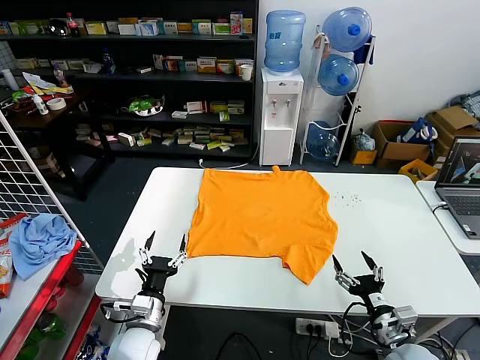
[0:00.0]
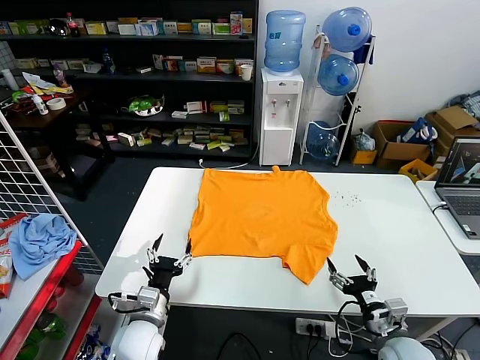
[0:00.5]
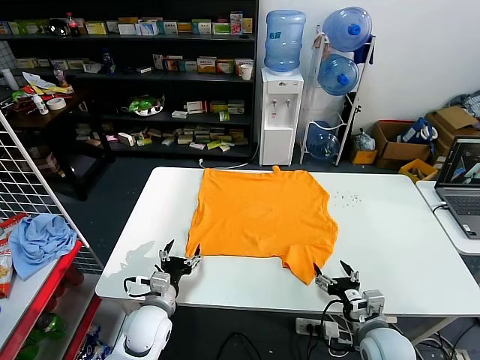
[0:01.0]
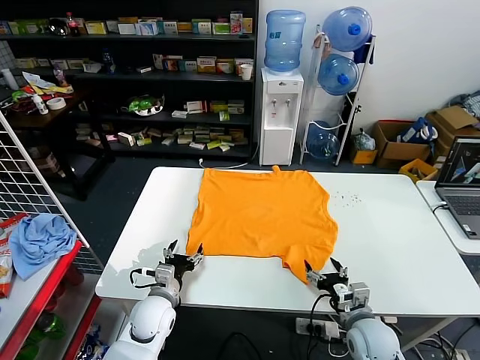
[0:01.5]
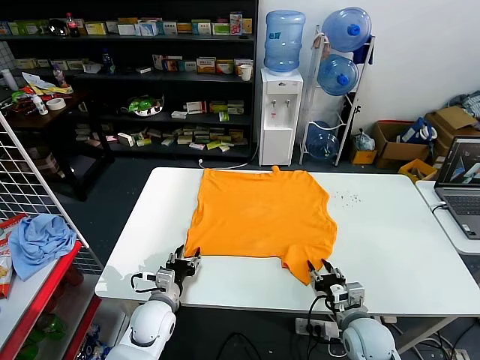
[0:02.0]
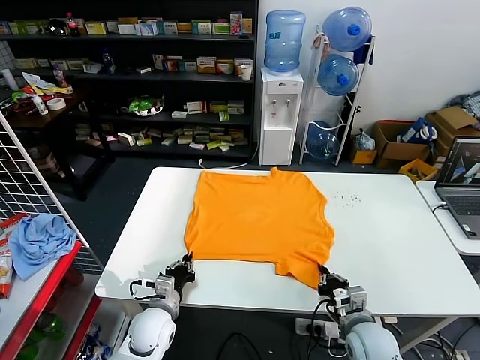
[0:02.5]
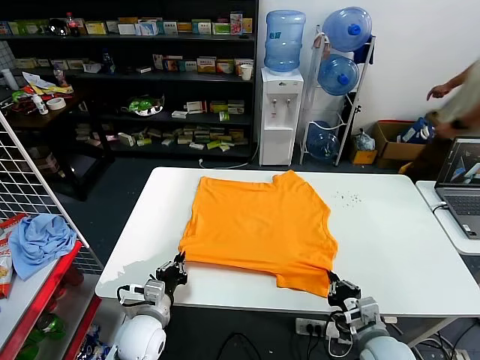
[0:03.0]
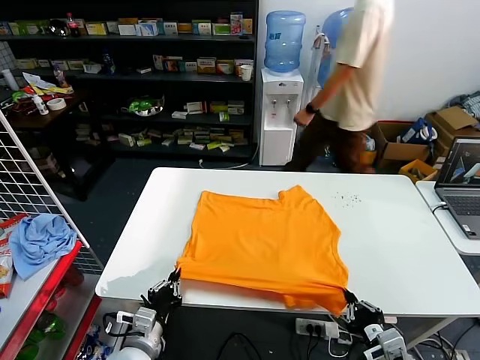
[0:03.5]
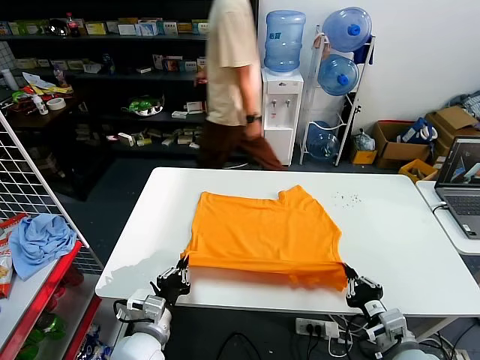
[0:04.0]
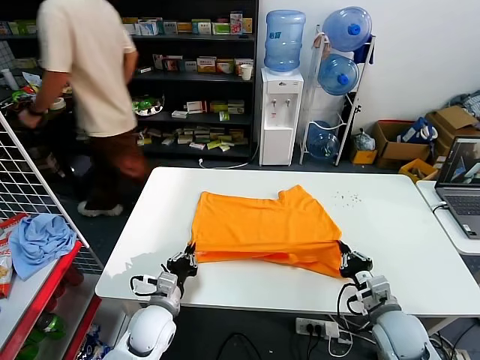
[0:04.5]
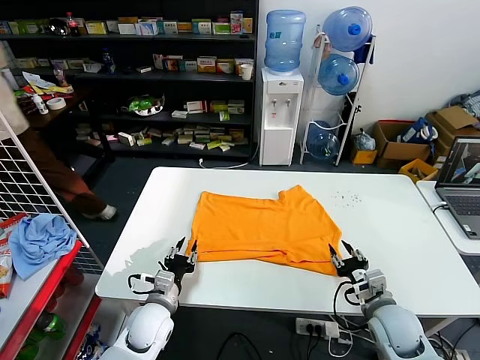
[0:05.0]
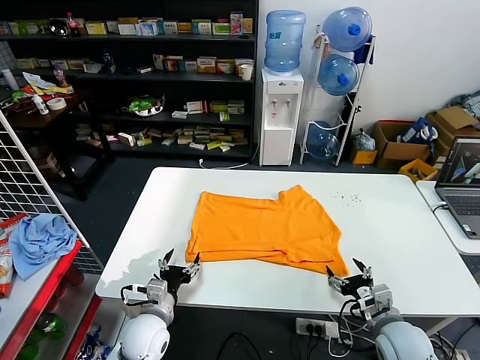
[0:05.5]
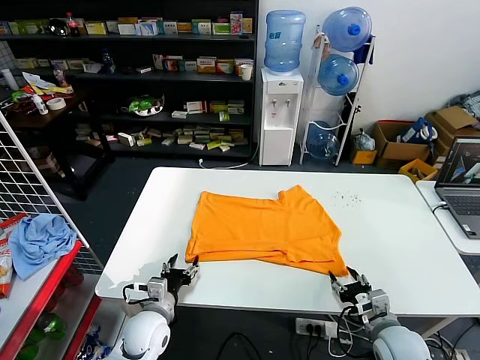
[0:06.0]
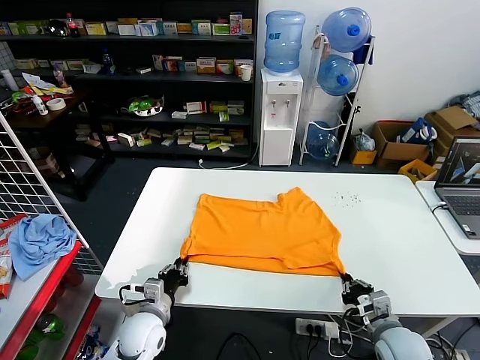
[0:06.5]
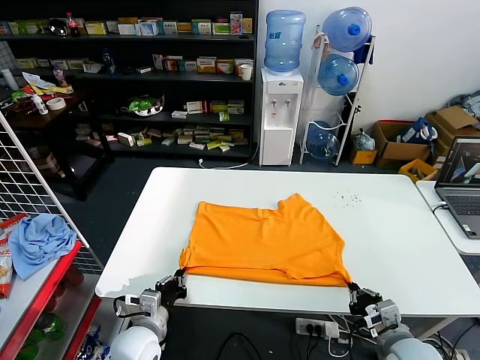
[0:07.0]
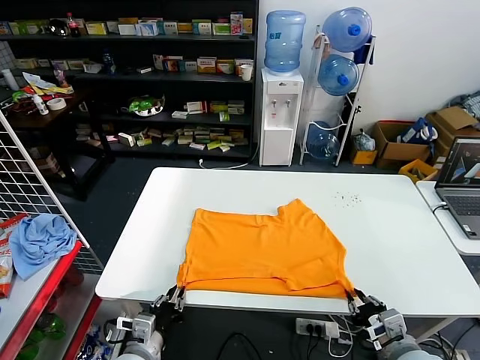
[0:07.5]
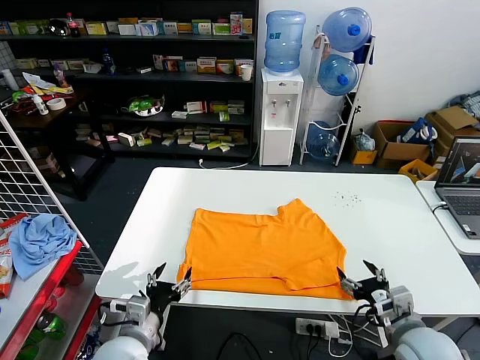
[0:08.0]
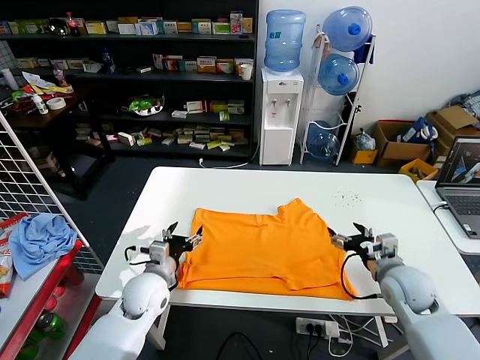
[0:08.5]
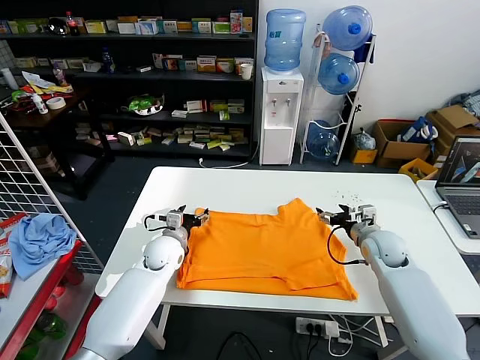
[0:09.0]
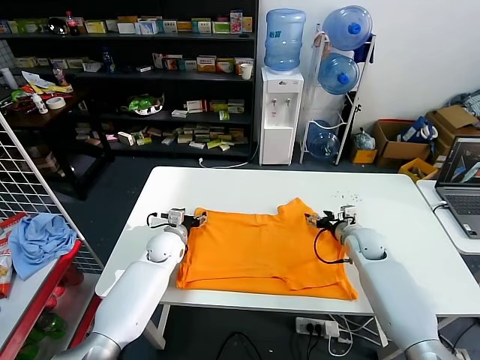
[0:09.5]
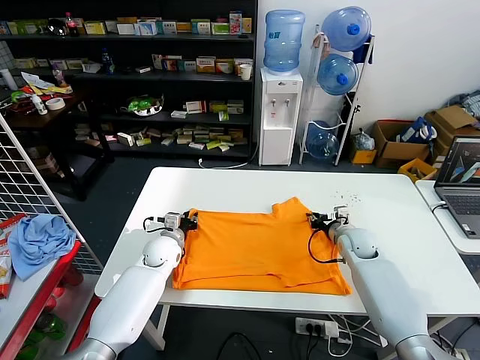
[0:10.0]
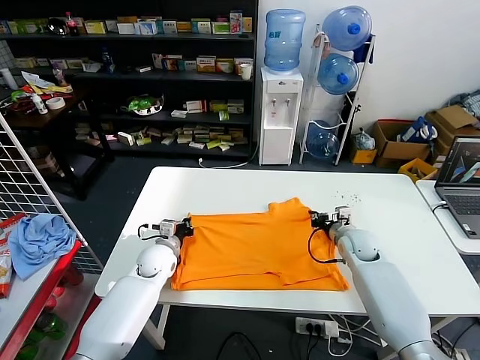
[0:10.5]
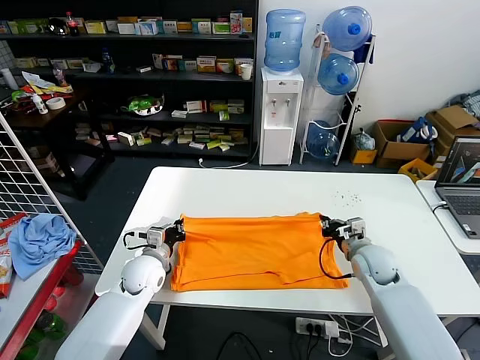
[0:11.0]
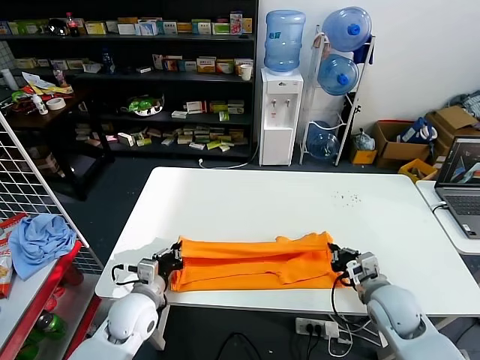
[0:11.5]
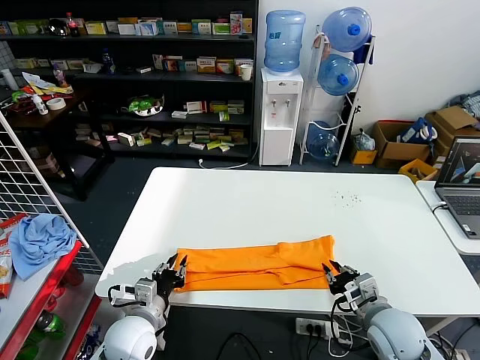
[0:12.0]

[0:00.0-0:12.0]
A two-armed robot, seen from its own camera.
Task of the whole recording: fold and organize the clothes.
Step, 0:00.0 to 0:02.5: use both grippers simultaneously to clamp the lower edge of the clothing fabric.
Step, 0:03.0 to 0:05.0: use both grippers to drag the lower edge of the fabric forward and fold it over the upper edge.
Step, 0:05.5 to 0:07.5: Drag the clothes downward with both gripper.
Step, 0:08.0 to 0:10.0: use both grippers simultaneously to clamp the upper edge of the clothing fabric.
0:02.0 to 0:04.0: The left gripper shifts some 10 cm backward, and closes its fingers. The right gripper goes about 10 cm backward and upward, and closes its fingers.
0:04.0 to 0:06.0: The left gripper moves forward, roughly 5 cm, and opens; the right gripper moves some 5 cm, and opens.
0:06.0 to 0:08.0: The right gripper is displaced upward by approximately 10 cm, and opens. Meanwhile the left gripper goes roughly 10 cm backward and upward, and closes, then reopens.
0:08.0 to 0:10.0: Both grippers travel together forward, approximately 25 cm. The left gripper closes. Meanwhile the right gripper closes.
0:10.0 to 0:12.0: Both grippers travel together backward, some 25 cm. The left gripper closes, then opens again.

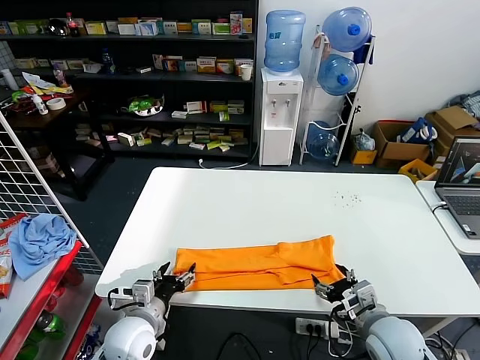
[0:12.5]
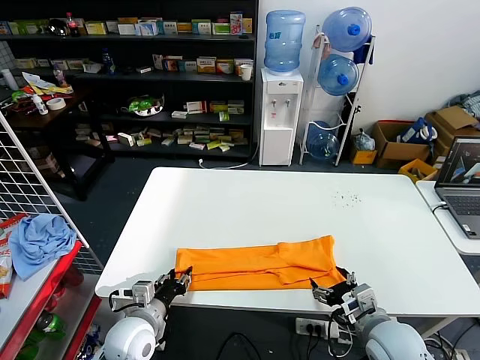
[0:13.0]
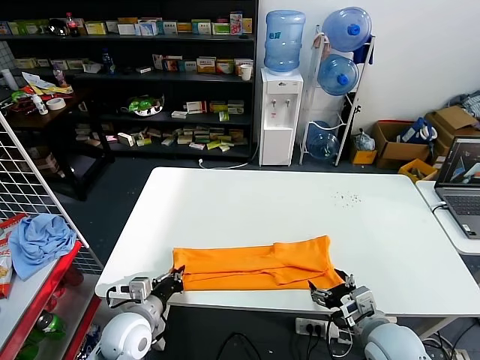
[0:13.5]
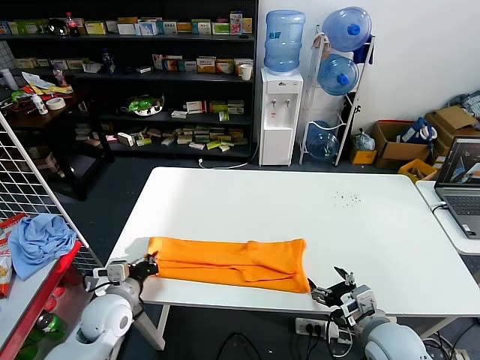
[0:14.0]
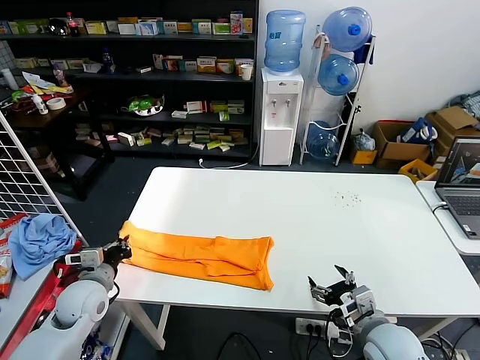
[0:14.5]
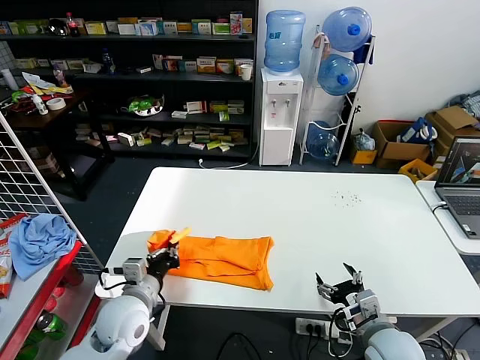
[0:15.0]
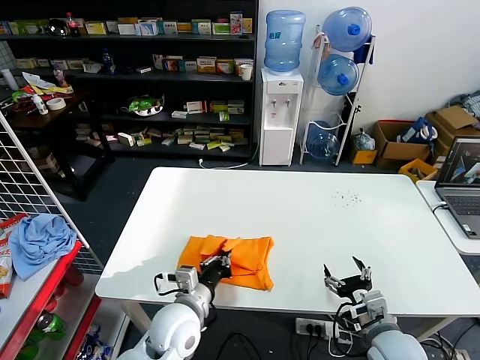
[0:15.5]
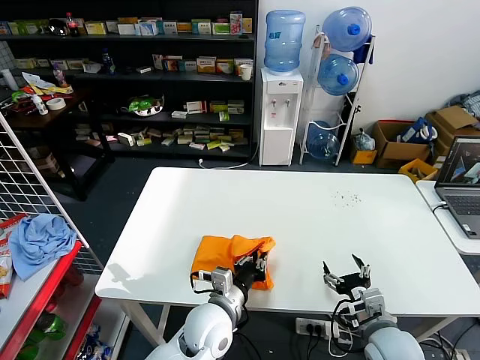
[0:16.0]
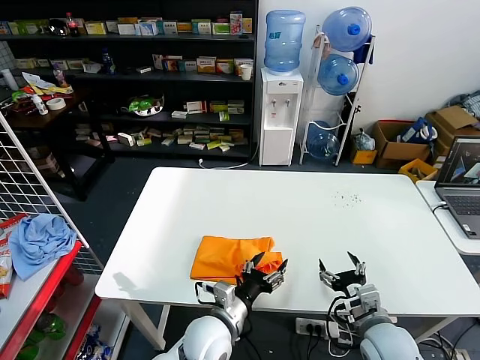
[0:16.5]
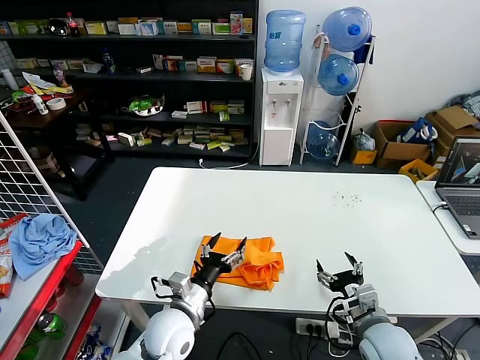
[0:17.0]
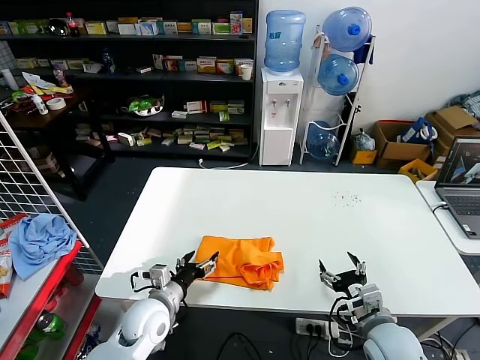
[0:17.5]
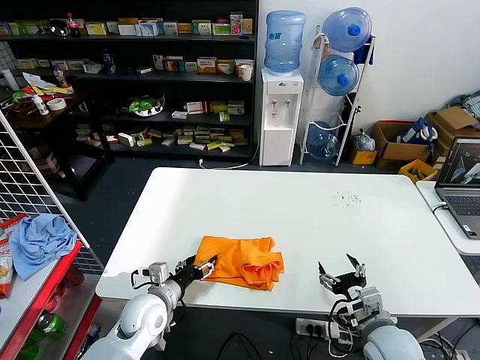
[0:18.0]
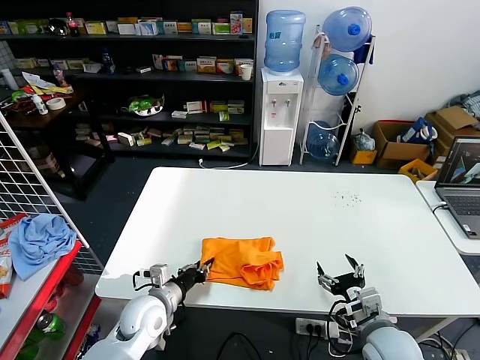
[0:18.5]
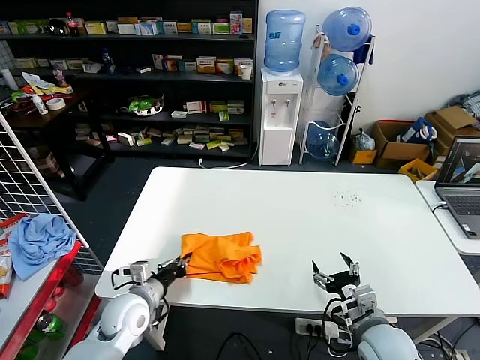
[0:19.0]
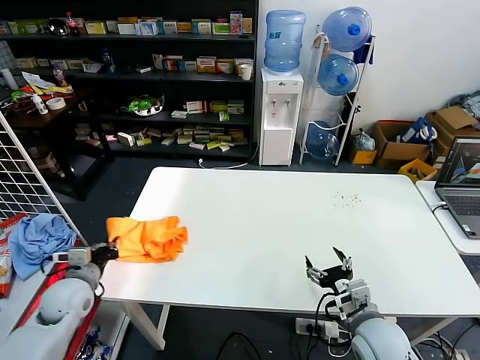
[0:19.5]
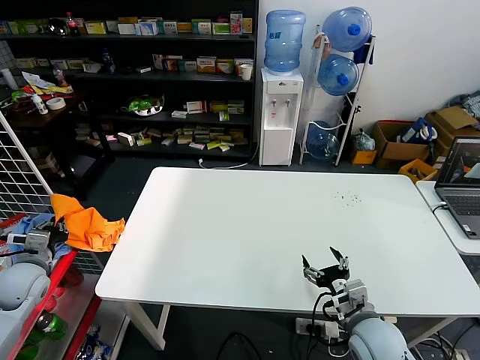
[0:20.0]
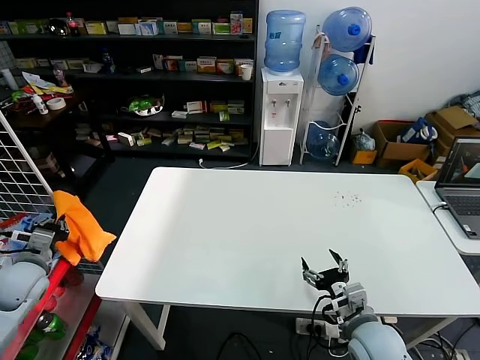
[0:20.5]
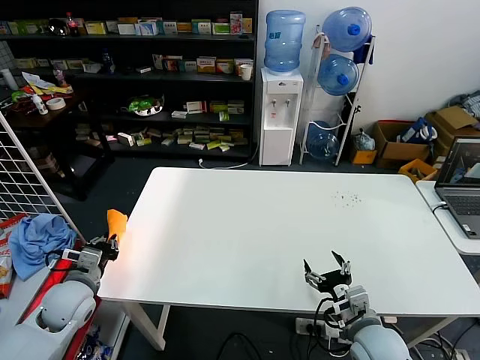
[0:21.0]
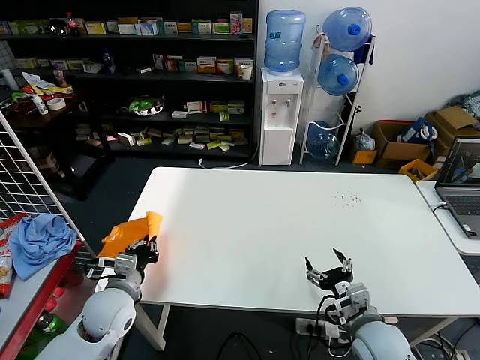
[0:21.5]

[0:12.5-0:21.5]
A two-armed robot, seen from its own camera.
Task of the whole recording: fold and organize the clothes.
Step, 0:12.5 to 0:13.5: use the left gripper to clamp the left edge of the fabric.
Step, 0:14.0 to 0:16.5: use the left gripper to drag the left edge of the fabric to the left and folds it over the right edge.
0:12.5 to 0:14.5: The left gripper travels to the left and forward by roughly 15 cm, and closes up.
0:14.5 to 0:17.0: The left gripper shifts some 20 cm to the right, and opens up.
0:17.0 to 0:19.5: The left gripper travels to the left by approximately 20 cm, and closes its fingers.
0:19.5 to 0:21.5: The left gripper is displaced to the right by about 10 cm.

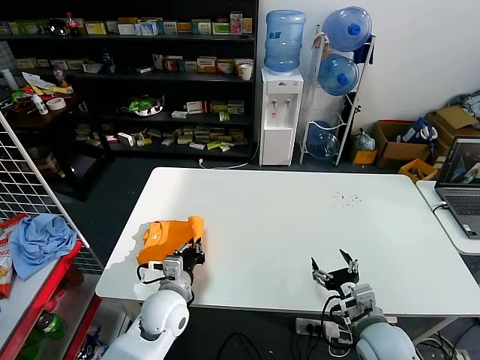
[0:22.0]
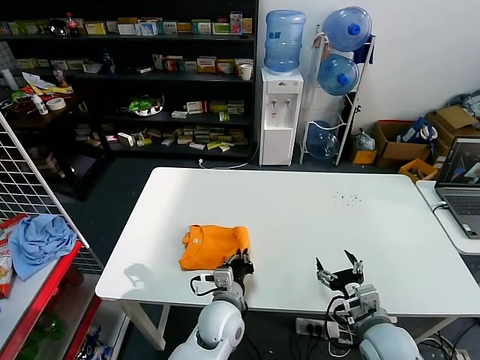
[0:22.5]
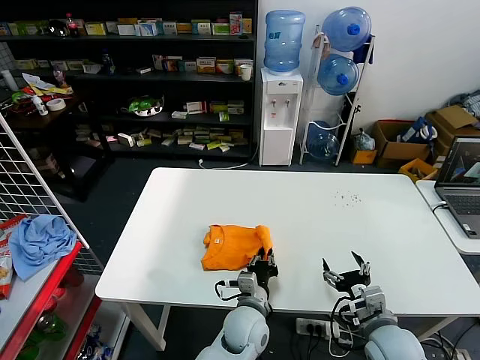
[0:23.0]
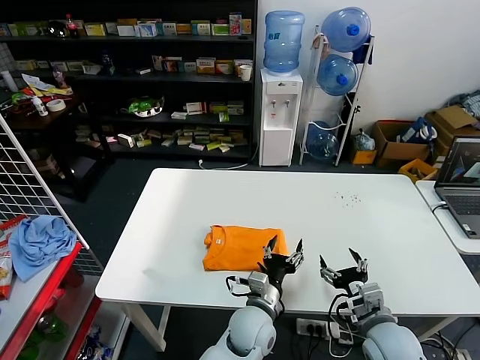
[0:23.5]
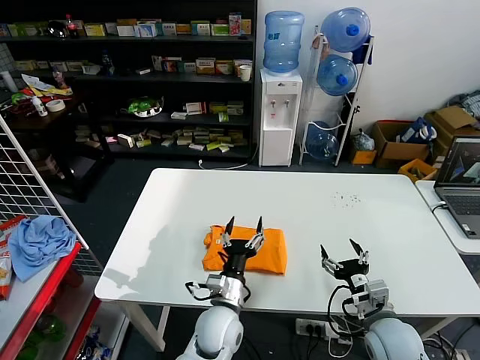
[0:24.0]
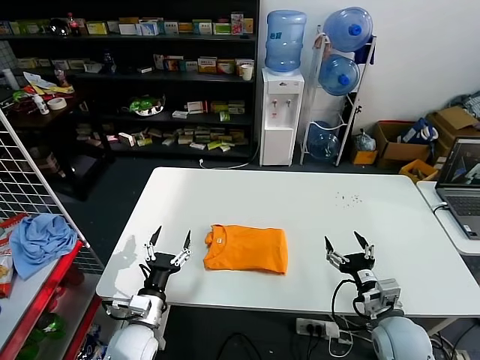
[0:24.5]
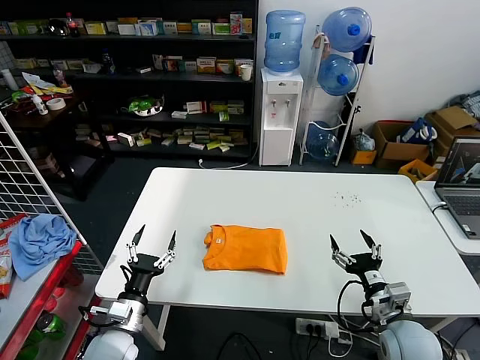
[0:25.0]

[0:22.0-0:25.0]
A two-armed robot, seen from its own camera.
Task of the whole recording: fold and organize the clothes.
0:22.0 to 0:23.5: The left gripper shifts approximately 20 cm to the right, and opens its fingers.
0:23.5 to 0:25.0: The left gripper shifts some 30 cm to the left.
